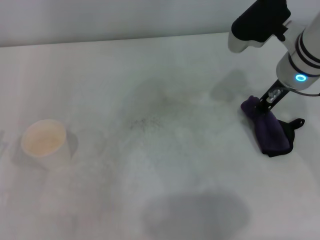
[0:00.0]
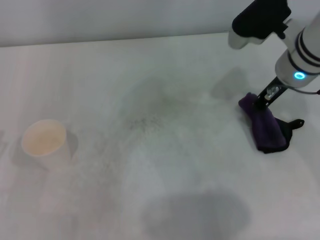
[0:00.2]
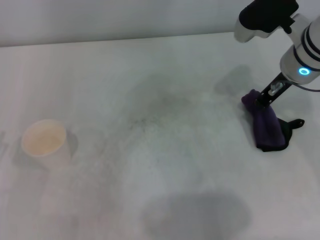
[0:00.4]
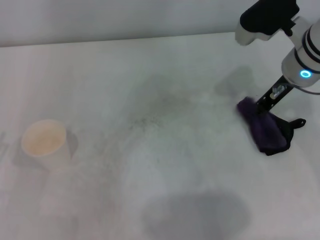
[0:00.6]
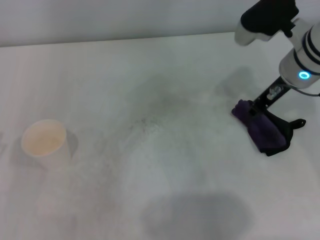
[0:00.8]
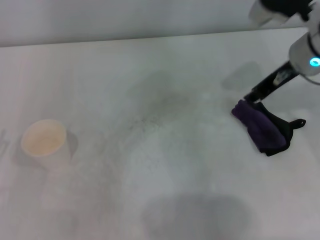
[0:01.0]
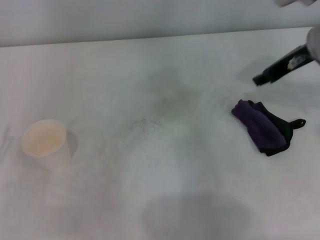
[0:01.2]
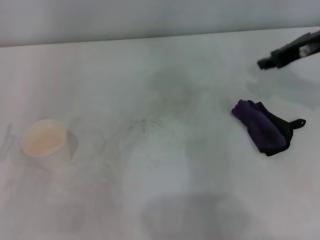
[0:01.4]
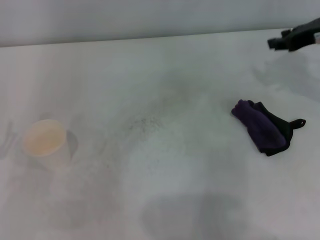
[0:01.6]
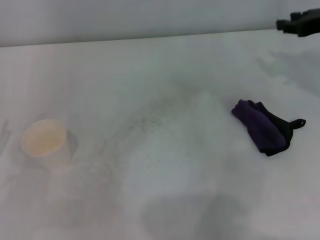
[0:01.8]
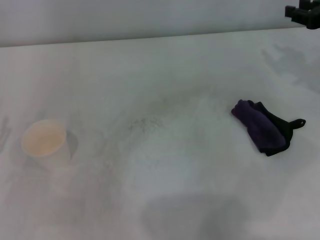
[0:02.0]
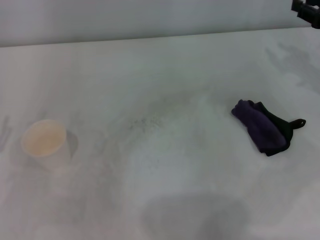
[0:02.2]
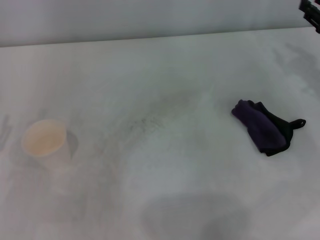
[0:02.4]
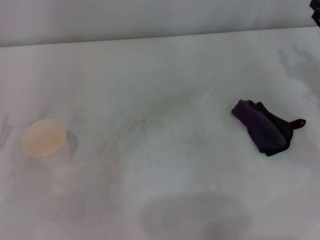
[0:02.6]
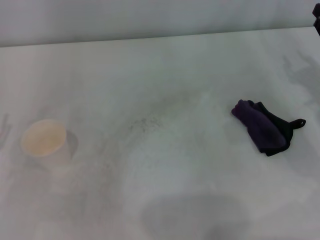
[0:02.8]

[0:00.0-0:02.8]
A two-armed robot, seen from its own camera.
Step, 0:00.0 to 0:00.6: Place the rag on the table with the right gripper.
0:00.0 to 0:01.4: The right gripper travels to the right by roughly 10 cm, and opens its fingers.
0:01.4 to 0:02.8: The right gripper heads downward, backward and to the right, covering about 15 cm.
